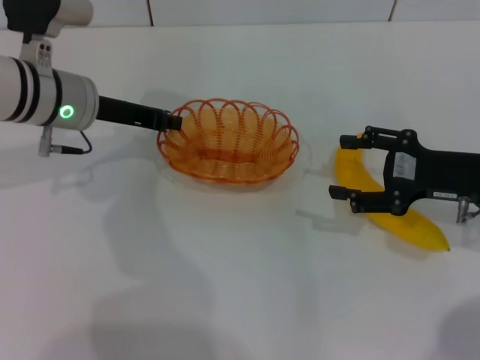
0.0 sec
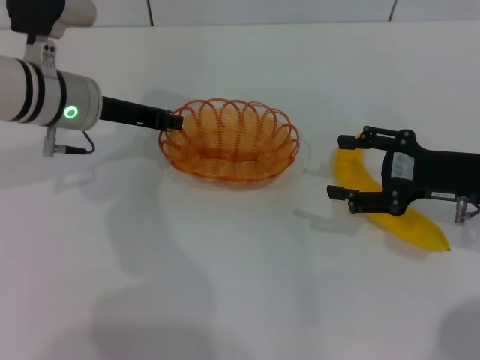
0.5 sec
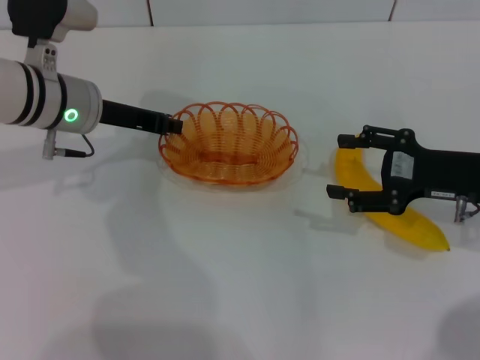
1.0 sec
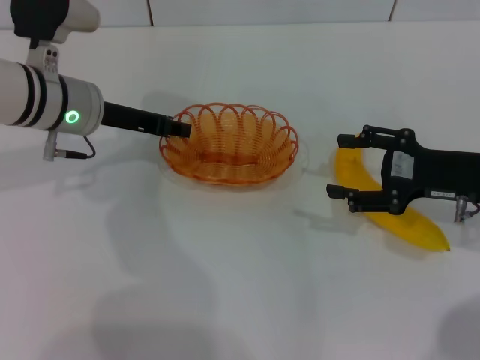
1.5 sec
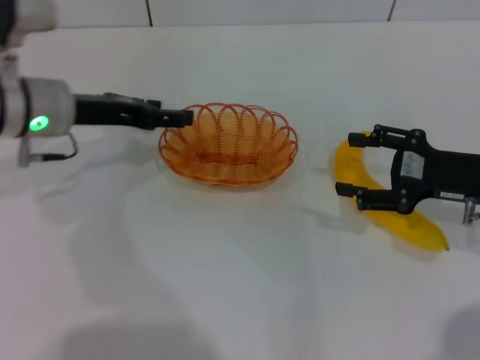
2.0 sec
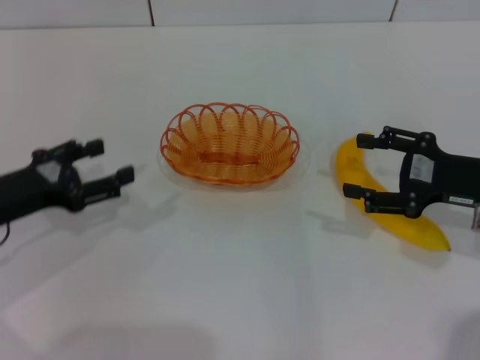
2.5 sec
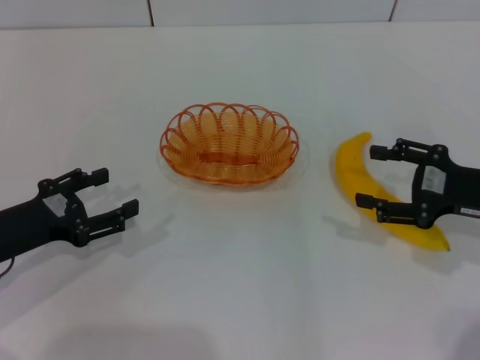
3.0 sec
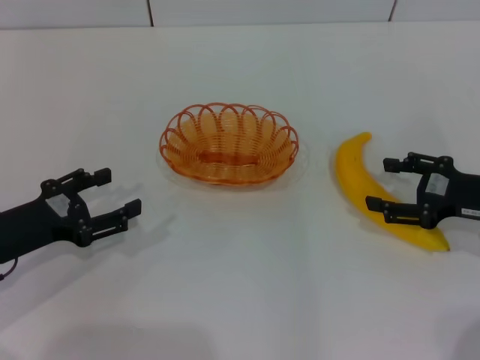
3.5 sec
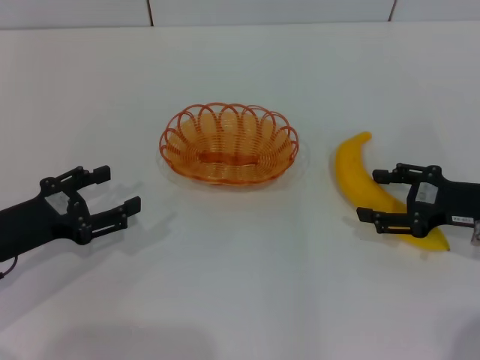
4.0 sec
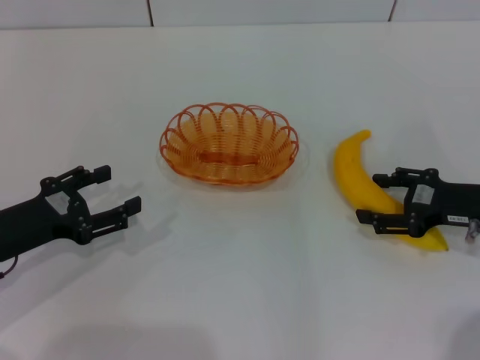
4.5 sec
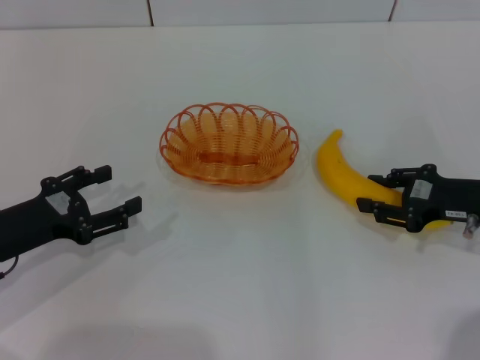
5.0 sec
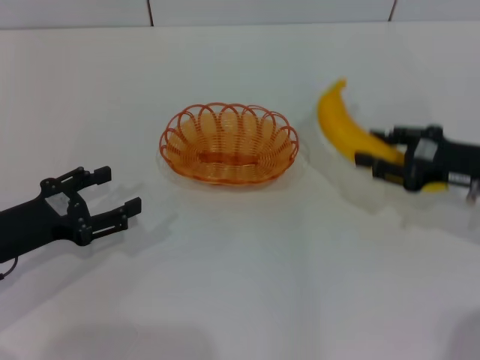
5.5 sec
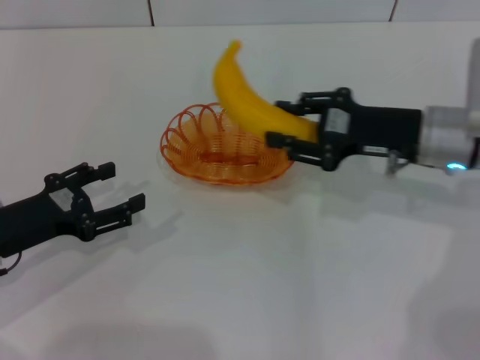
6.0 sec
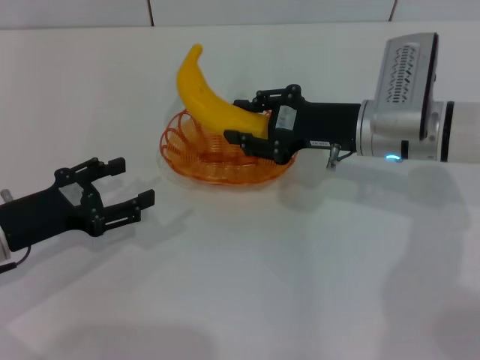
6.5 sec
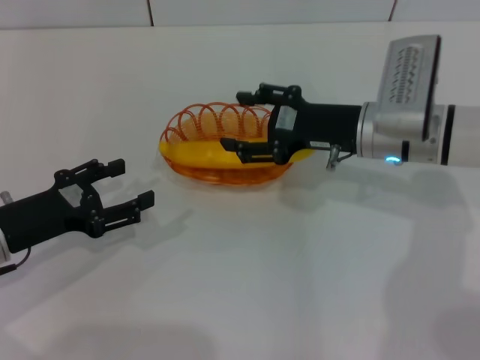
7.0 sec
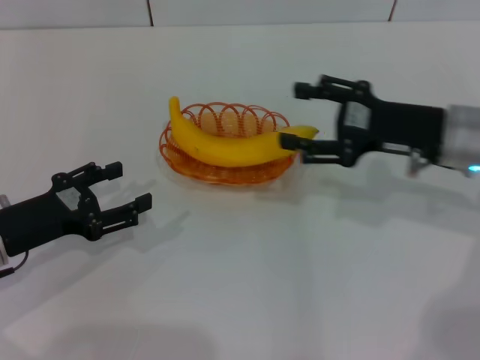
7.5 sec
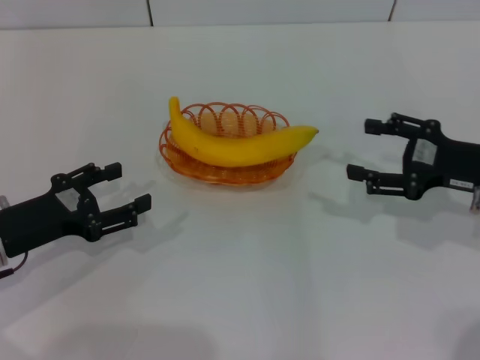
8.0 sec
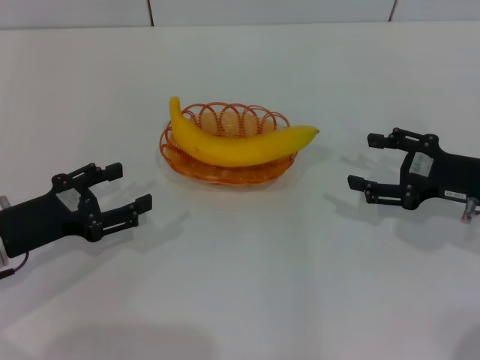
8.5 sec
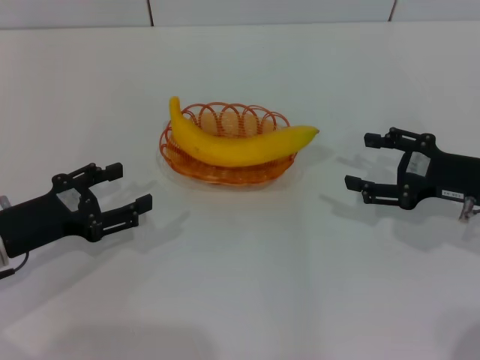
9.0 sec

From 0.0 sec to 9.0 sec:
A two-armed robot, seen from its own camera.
Step, from 0.0 sec to 2.0 sec: Place the basket in the center of view with the left gripper.
Step, from 2.5 sec to 5.5 sec: Pick up the banana with the right gripper.
Step, from 6.0 sec to 7.0 sec: Place the banana into the basket with the right gripper.
From 0.0 sec to 2.0 sec: The left gripper opens up.
From 2.0 sec to 4.5 sec: The left gripper travels backward, to the left and downward by approximately 15 cm.
From 4.5 sec to 7.0 sec: The right gripper is displaced to the left and forward by roughly 15 cm, and closes up.
From 7.0 sec to 9.0 sec: The right gripper moves to the right and backward, approximately 15 cm, and opens its fingers.

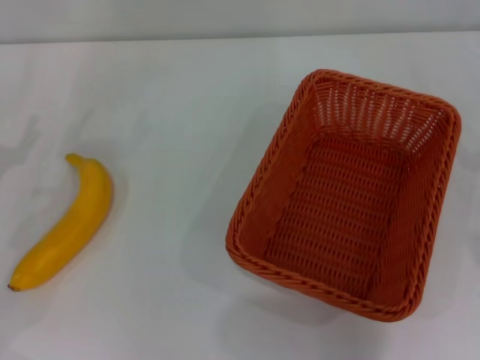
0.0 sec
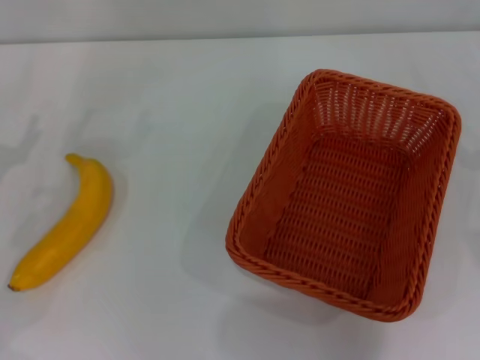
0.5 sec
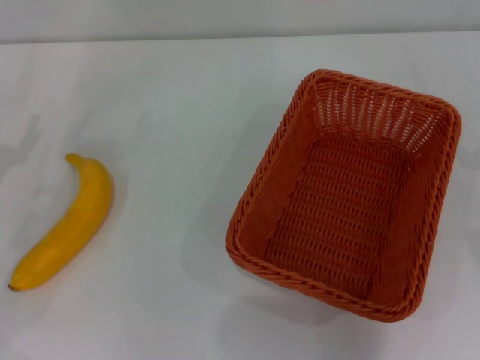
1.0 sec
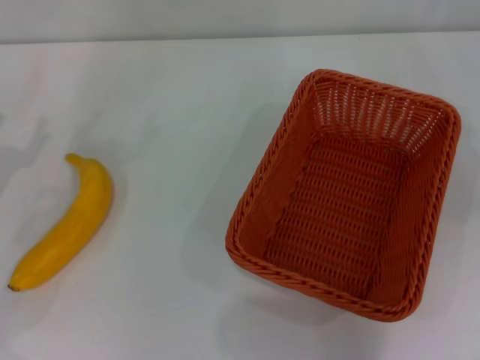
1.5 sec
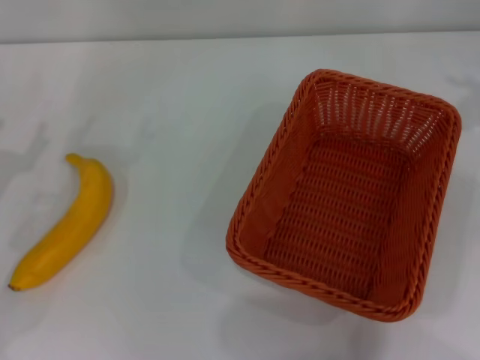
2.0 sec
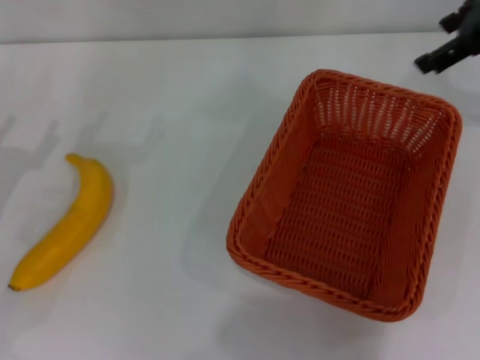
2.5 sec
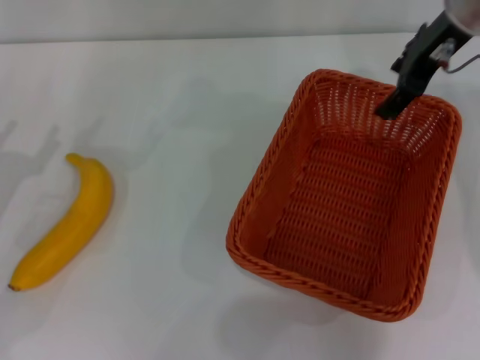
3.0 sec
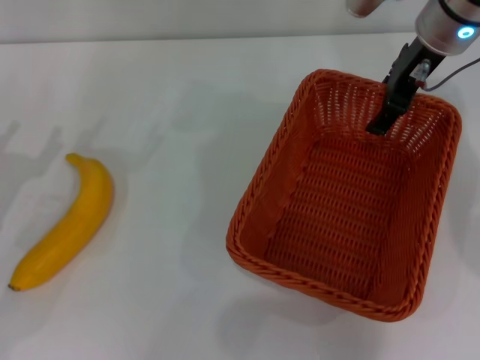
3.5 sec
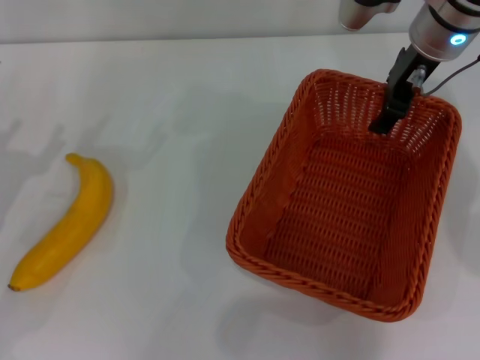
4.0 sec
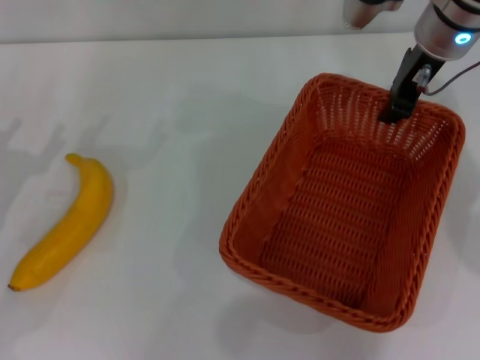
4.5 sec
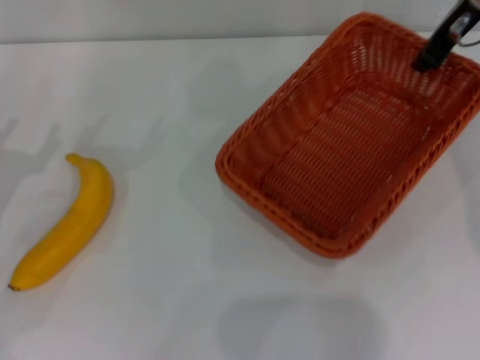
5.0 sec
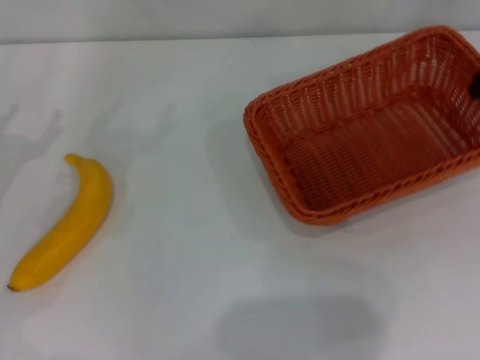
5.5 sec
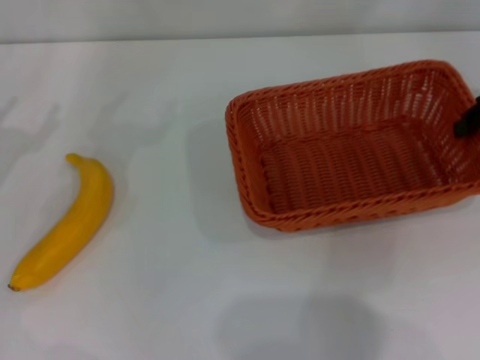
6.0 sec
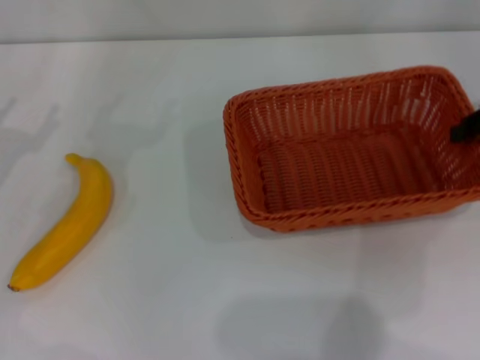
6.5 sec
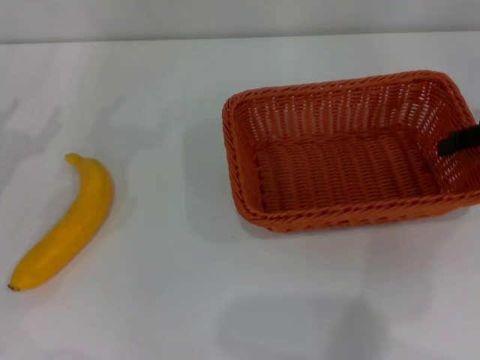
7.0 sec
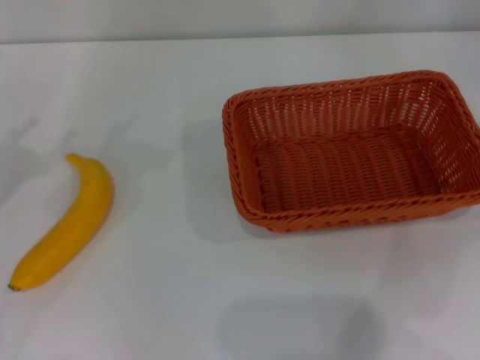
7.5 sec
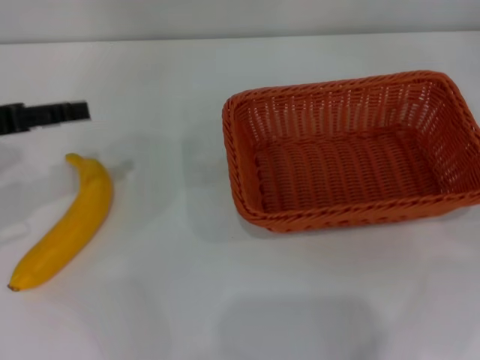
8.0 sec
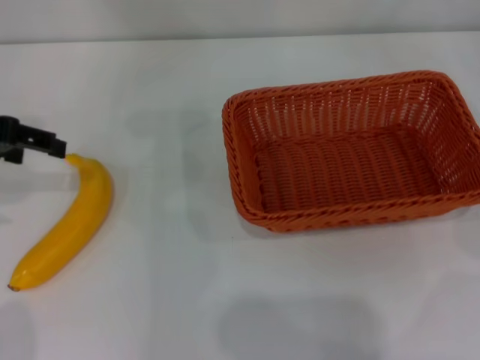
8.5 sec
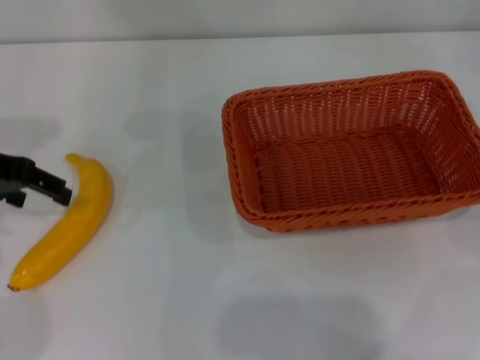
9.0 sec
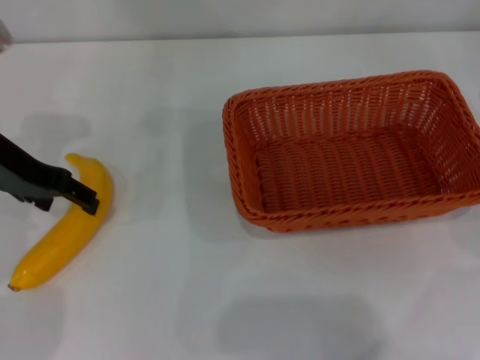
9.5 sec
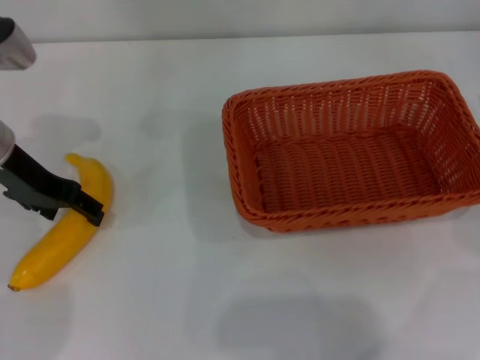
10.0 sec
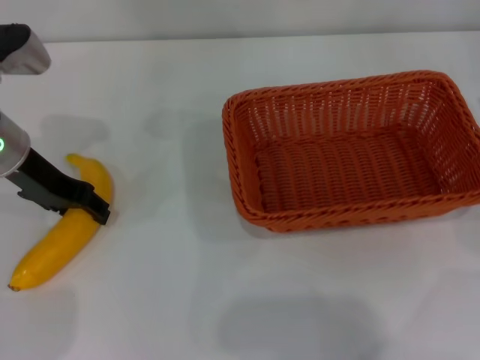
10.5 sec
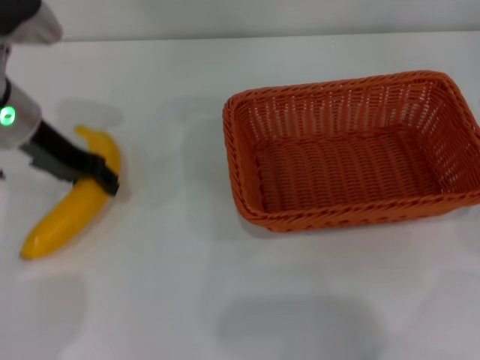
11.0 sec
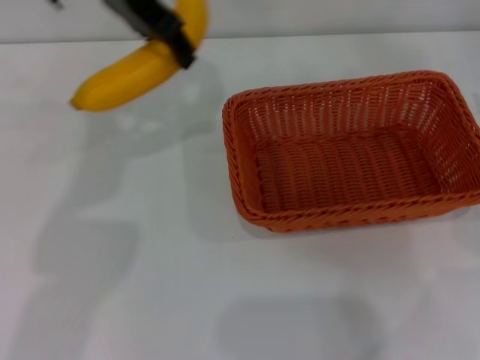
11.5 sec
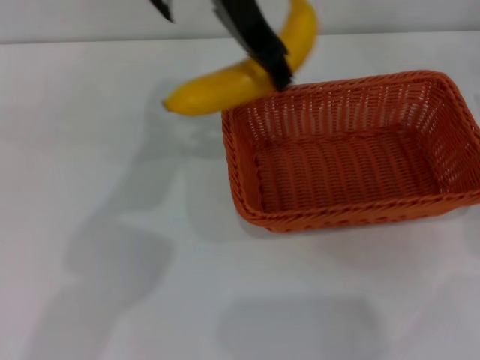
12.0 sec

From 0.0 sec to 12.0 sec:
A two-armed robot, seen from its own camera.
Step, from 0.0 sec to 4.5 sec: Pick up the light basket with the right gripper.
Step, from 5.5 sec to 7.0 sec: Place the light basket in the center of view with the right gripper.
Step, from 8.0 sec to 11.0 sec: Pick up the banana with the left gripper.
From 2.0 sec to 4.0 sec: The right gripper is displaced to the left by about 20 cm.
From 4.0 sec to 6.0 sec: The right gripper travels to the right and backward by approximately 15 cm, and closes its fingers.
From 6.0 sec to 8.0 sec: The left gripper goes roughly 10 cm upward. Meanwhile the right gripper heads to the right, covering approximately 10 cm, and opens its fingers.
From 8.0 sec to 10.0 sec: The left gripper moves to the right and forward, some 10 cm.
From 10.0 sec to 12.0 sec: The left gripper goes approximately 25 cm to the right and upward, and closes.

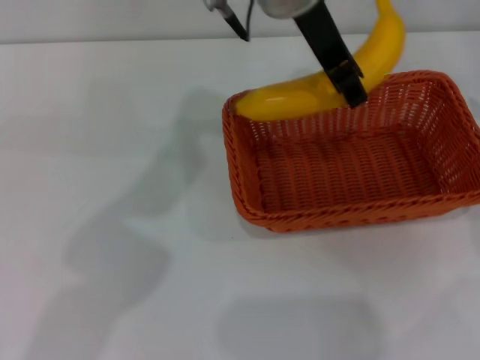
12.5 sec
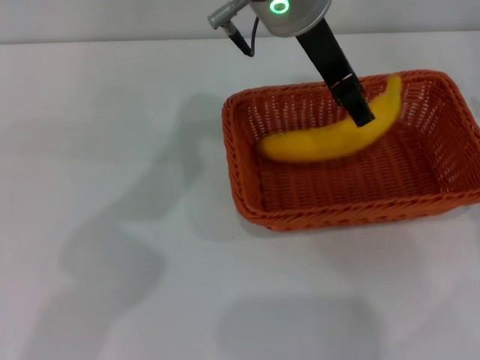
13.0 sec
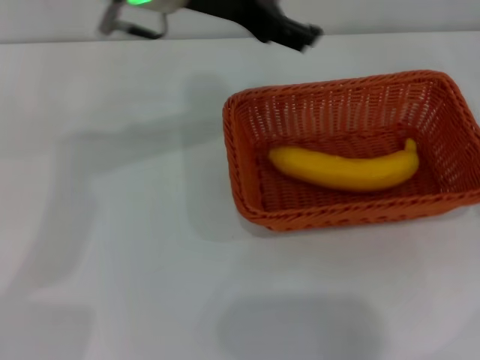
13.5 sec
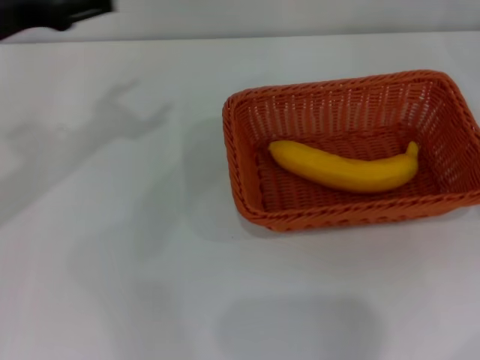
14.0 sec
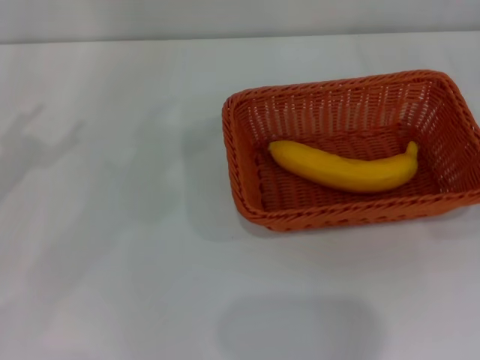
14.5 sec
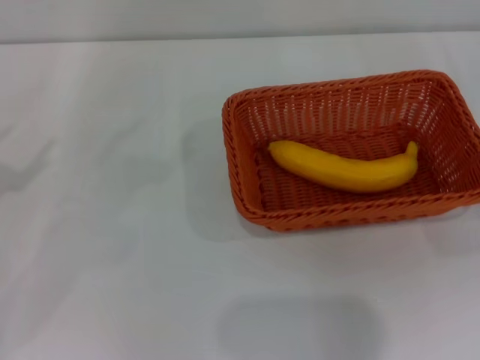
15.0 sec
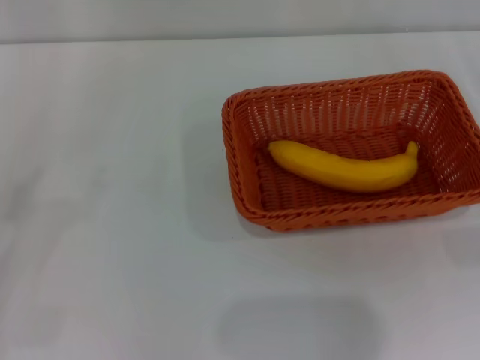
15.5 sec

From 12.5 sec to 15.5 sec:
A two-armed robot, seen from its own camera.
From 12.5 sec to 14.0 sec: The left gripper moves to the left, roughly 30 cm, and opens up.
From 14.0 sec to 15.5 sec: The left gripper moves backward, to the left and downward, roughly 25 cm.
